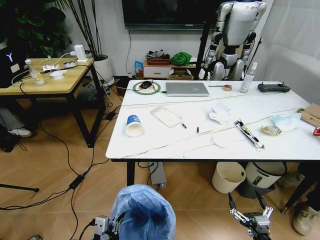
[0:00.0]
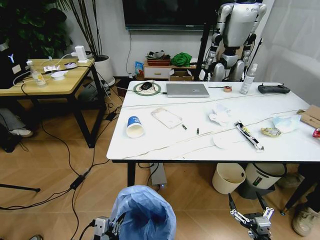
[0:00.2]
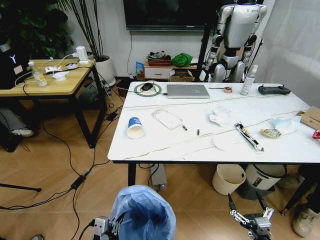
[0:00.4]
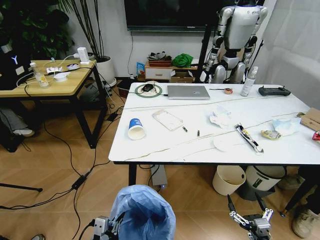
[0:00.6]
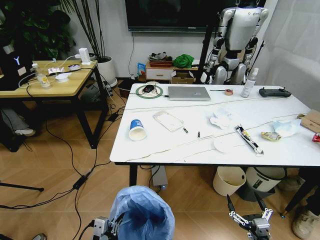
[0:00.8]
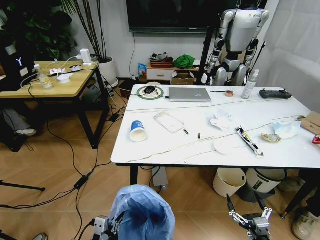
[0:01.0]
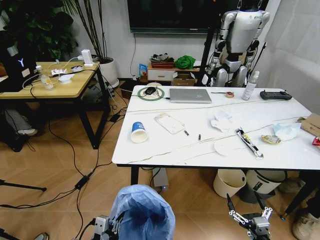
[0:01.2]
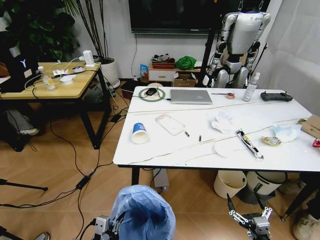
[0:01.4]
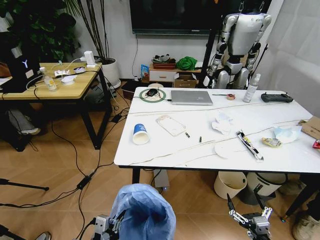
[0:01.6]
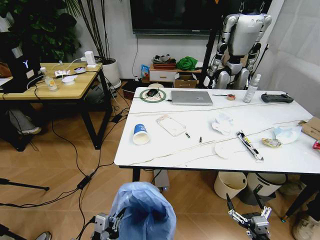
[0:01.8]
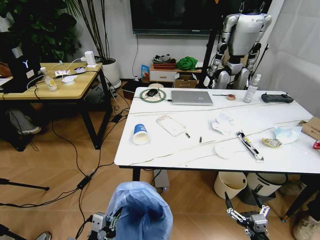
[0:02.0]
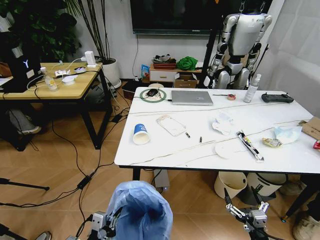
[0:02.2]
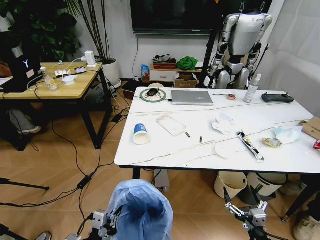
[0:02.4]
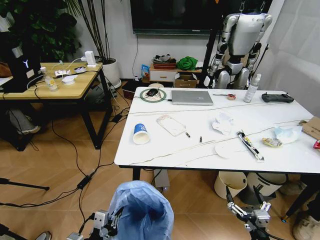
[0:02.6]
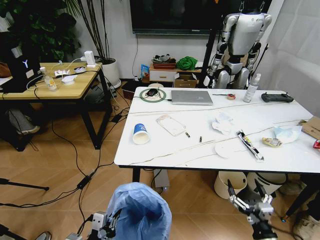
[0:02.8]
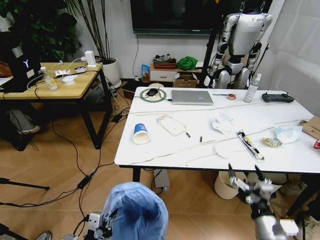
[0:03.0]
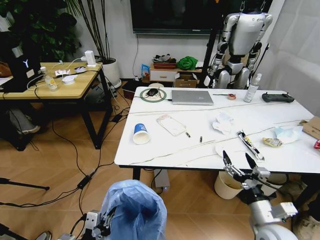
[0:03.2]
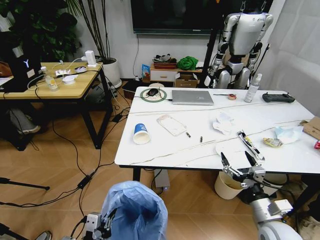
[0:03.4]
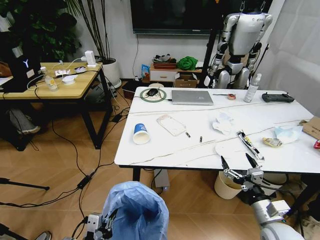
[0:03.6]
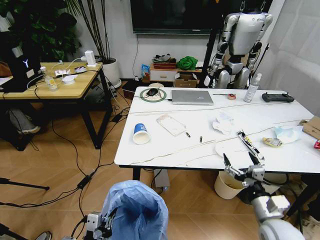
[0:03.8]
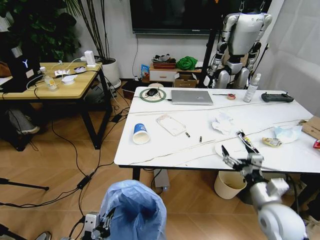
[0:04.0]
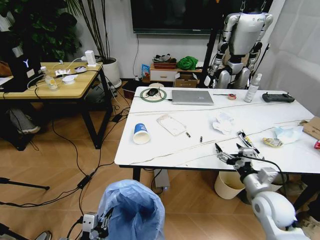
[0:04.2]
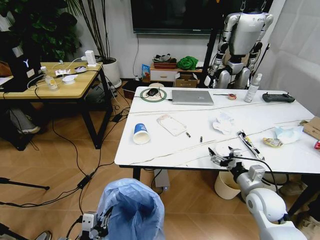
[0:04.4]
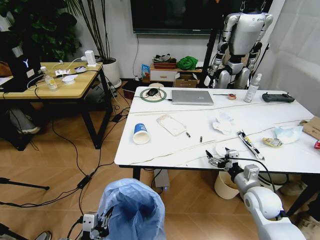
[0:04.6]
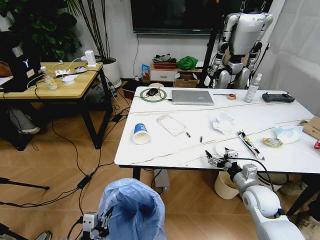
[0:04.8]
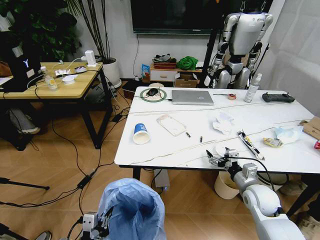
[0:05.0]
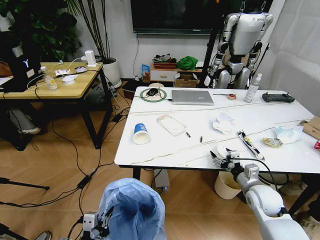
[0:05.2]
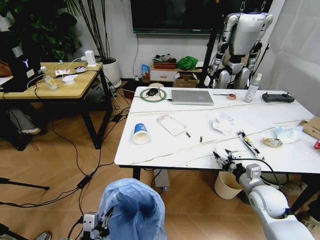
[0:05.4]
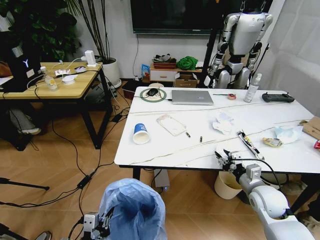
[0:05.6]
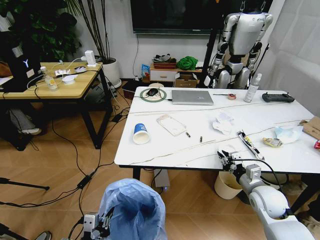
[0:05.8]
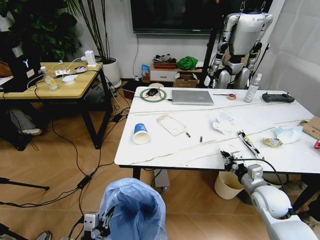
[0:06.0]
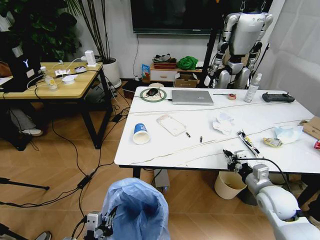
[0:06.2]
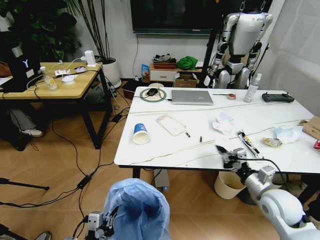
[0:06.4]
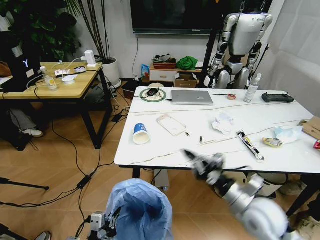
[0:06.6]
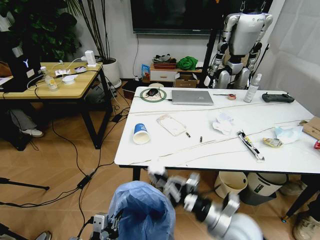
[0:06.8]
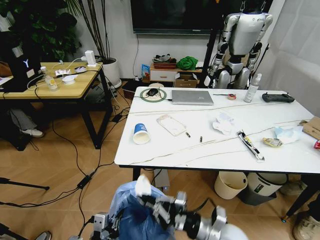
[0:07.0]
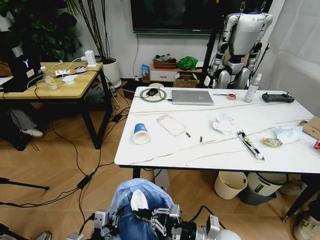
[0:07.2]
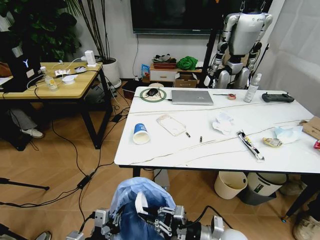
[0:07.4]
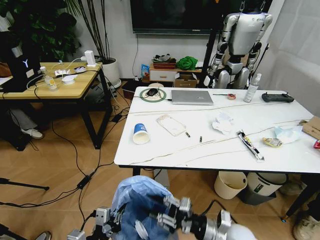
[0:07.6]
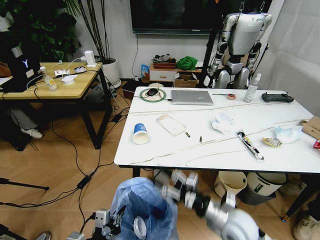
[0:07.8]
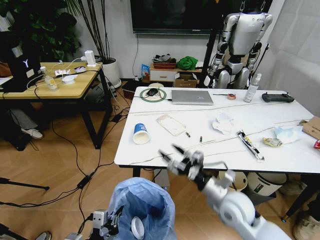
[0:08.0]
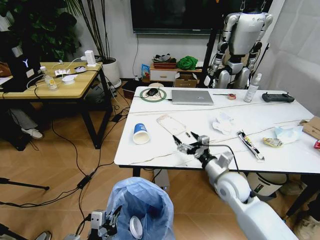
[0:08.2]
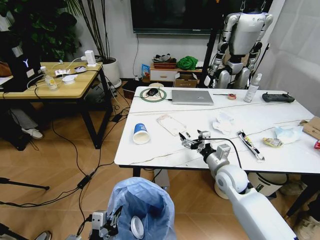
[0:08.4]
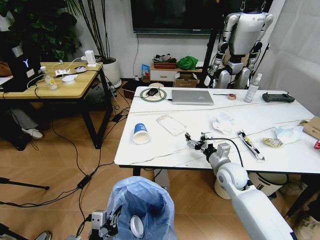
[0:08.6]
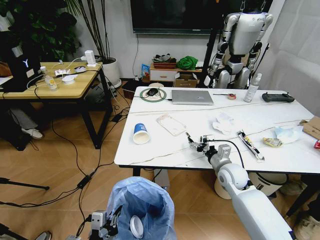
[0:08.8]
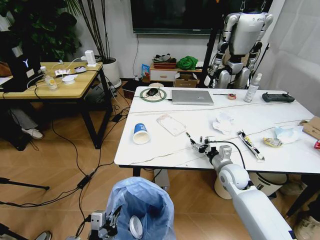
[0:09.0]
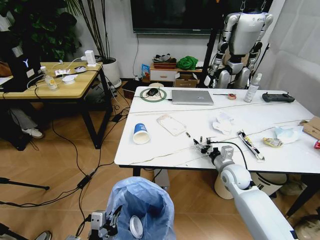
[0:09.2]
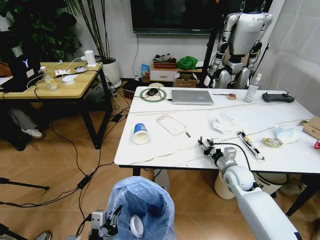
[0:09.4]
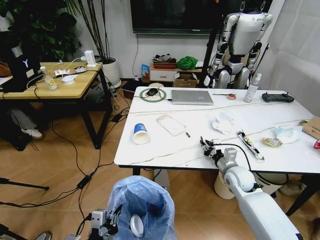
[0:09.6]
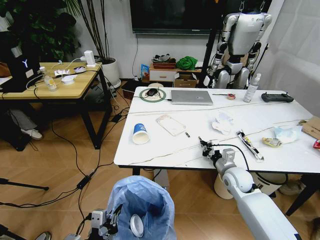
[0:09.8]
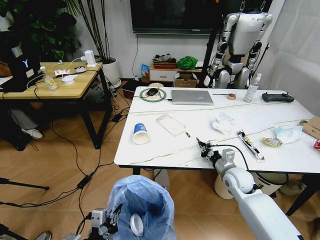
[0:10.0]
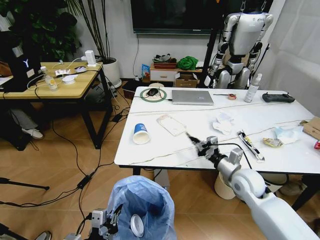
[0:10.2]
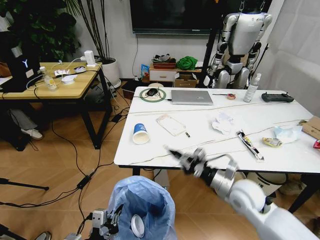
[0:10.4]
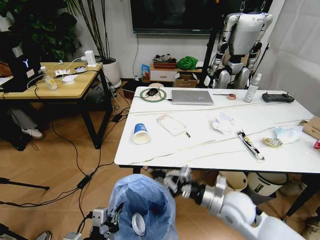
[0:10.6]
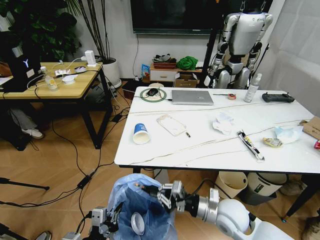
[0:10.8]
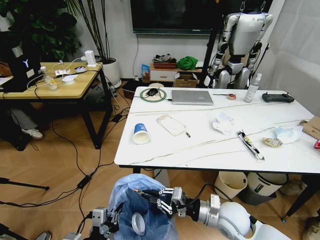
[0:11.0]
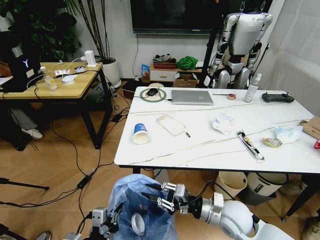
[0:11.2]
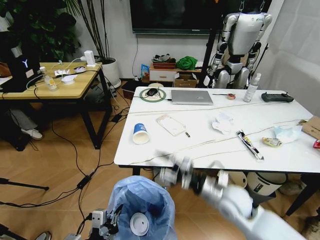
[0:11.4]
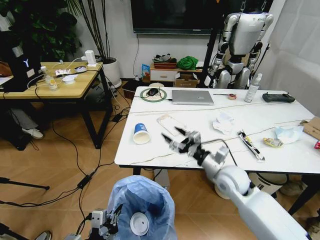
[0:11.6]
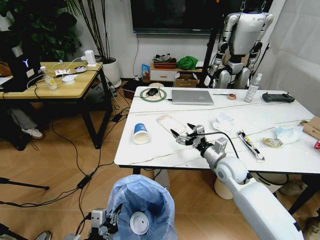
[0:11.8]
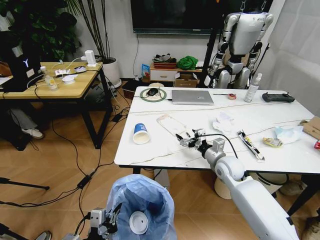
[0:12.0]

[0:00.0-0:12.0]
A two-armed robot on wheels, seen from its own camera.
Task of the whole recording: Pick up the trash bin and place the trash from the table into it.
0:01.6 to 0:03.0: The right gripper goes about 10 cm upward and forward.
0:03.0 to 0:04.4: The right gripper travels forward by about 15 cm.
0:04.4 to 0:06.0: The right gripper closes its fingers.
0:06.0 to 0:07.6: The right gripper shifts roughly 20 cm to the left and backward, and opens up.
0:07.6 to 0:09.0: The right gripper shifts roughly 20 cm forward, and opens up.
0:09.0 to 0:10.4: The right gripper moves backward and upward, about 10 cm, and closes up.
0:10.4 to 0:12.0: The right gripper travels forward by approximately 10 cm, and opens.

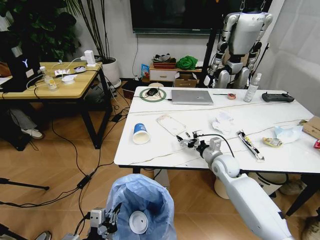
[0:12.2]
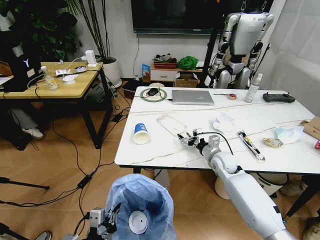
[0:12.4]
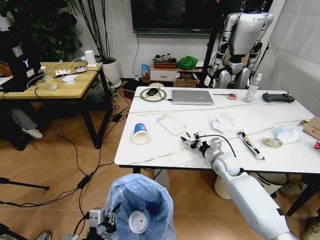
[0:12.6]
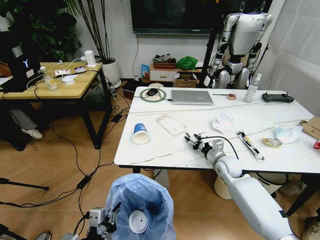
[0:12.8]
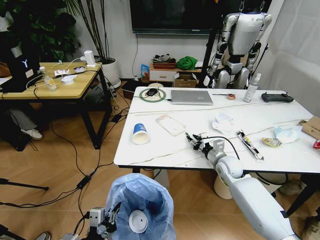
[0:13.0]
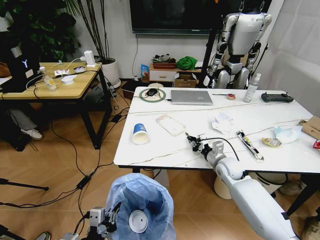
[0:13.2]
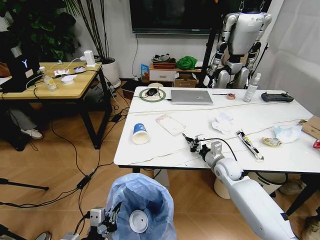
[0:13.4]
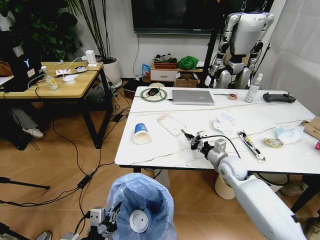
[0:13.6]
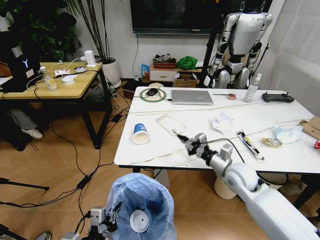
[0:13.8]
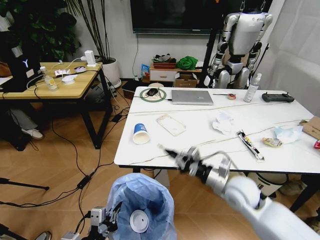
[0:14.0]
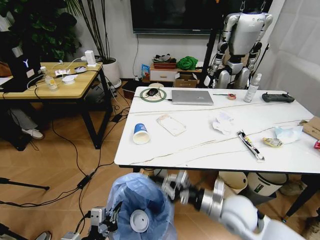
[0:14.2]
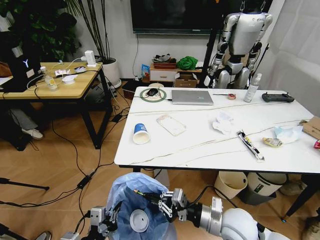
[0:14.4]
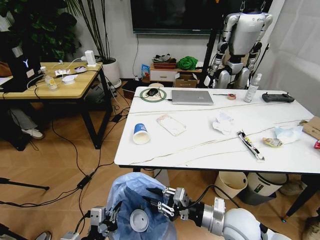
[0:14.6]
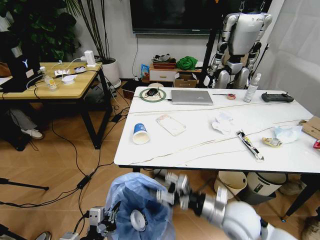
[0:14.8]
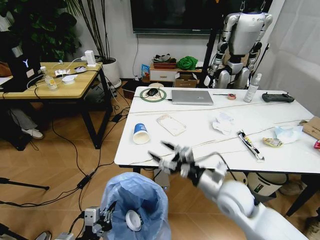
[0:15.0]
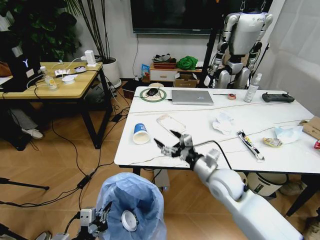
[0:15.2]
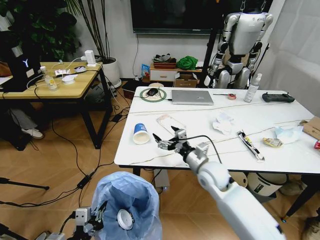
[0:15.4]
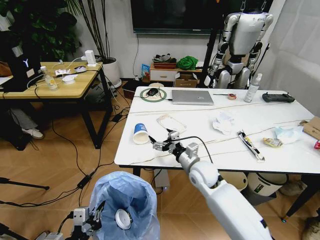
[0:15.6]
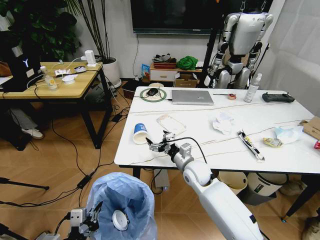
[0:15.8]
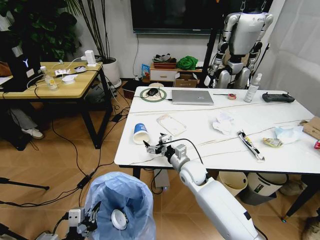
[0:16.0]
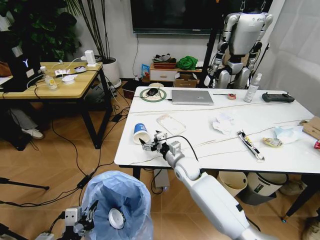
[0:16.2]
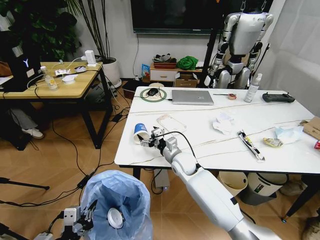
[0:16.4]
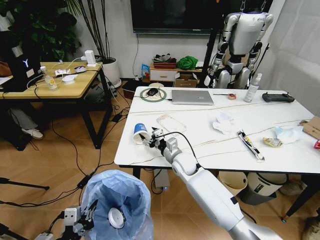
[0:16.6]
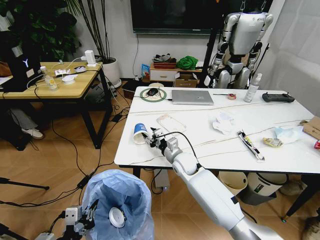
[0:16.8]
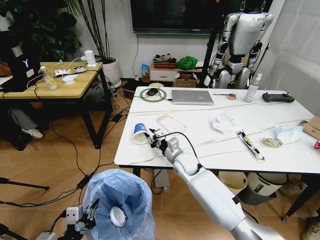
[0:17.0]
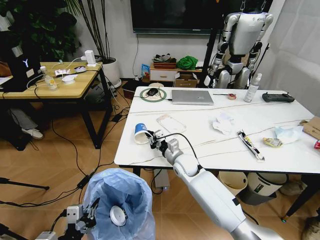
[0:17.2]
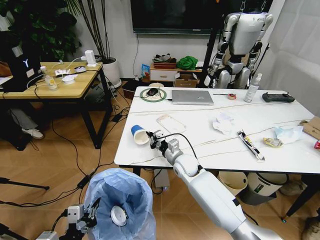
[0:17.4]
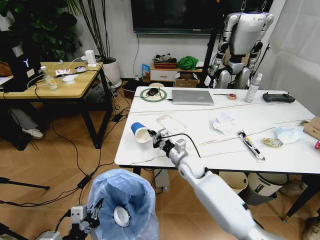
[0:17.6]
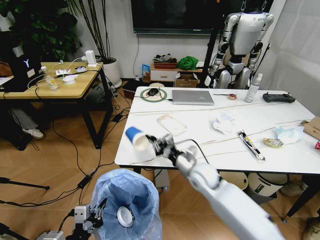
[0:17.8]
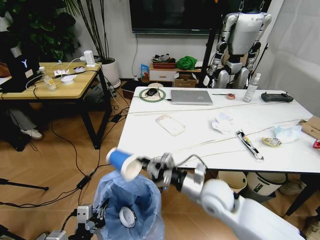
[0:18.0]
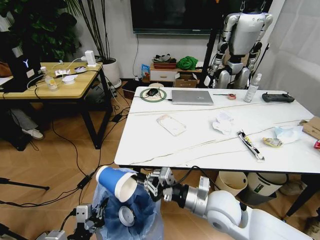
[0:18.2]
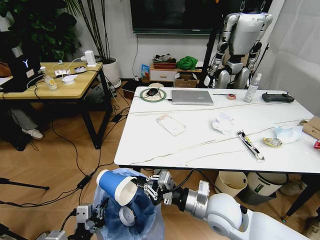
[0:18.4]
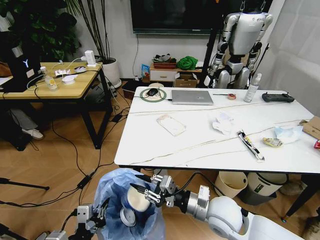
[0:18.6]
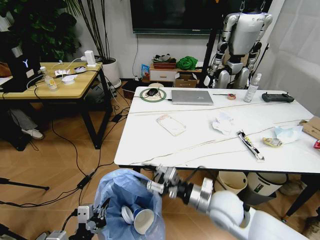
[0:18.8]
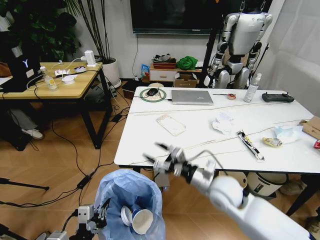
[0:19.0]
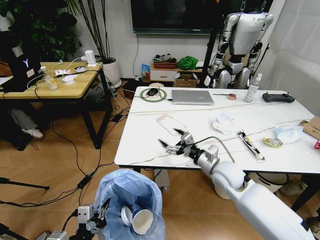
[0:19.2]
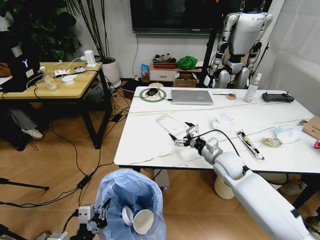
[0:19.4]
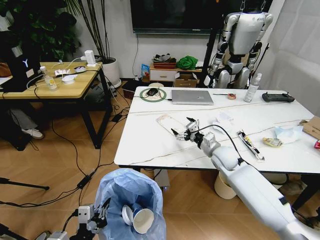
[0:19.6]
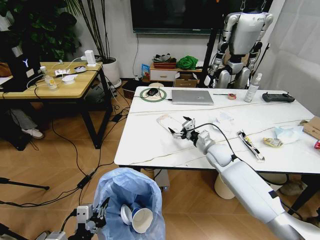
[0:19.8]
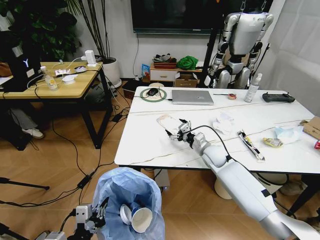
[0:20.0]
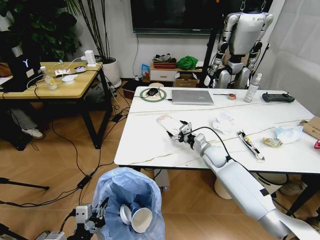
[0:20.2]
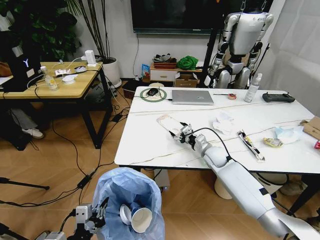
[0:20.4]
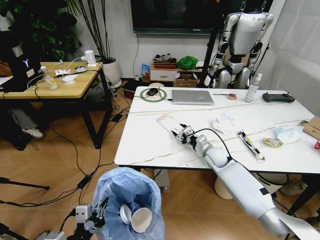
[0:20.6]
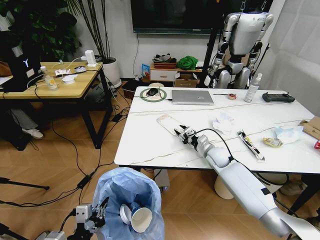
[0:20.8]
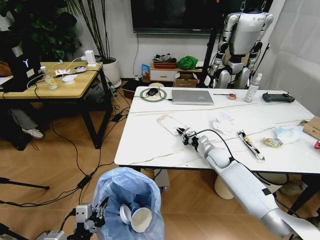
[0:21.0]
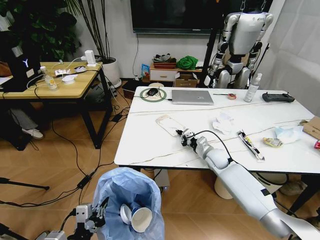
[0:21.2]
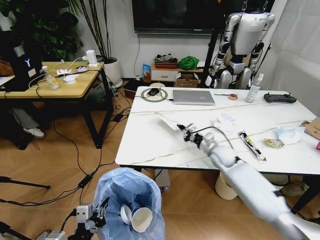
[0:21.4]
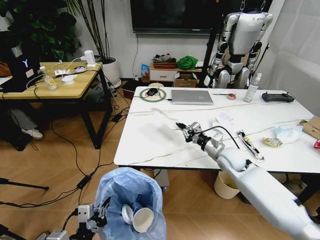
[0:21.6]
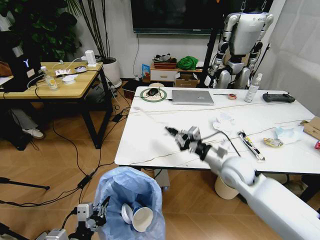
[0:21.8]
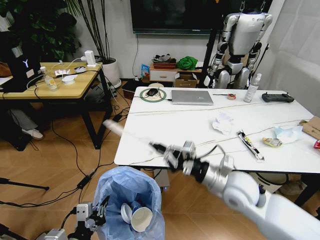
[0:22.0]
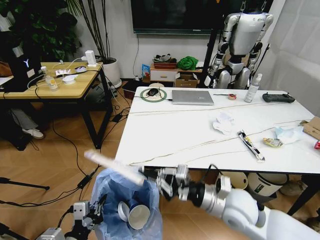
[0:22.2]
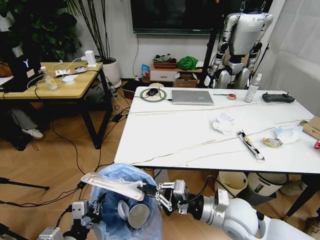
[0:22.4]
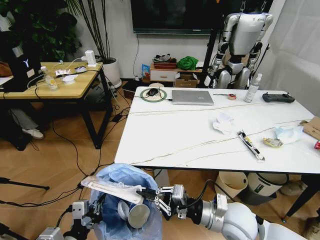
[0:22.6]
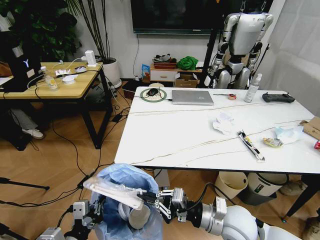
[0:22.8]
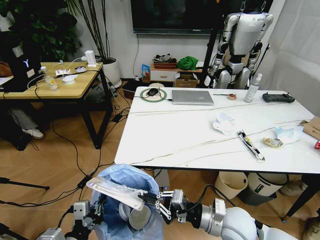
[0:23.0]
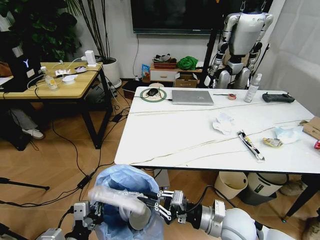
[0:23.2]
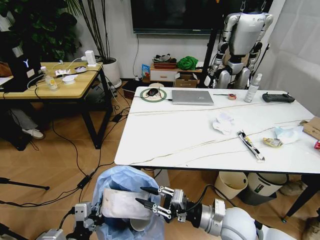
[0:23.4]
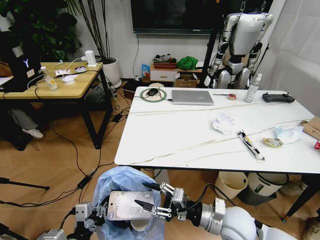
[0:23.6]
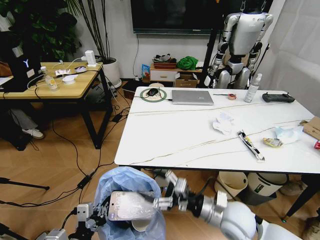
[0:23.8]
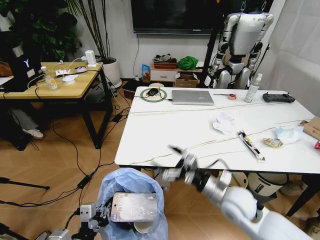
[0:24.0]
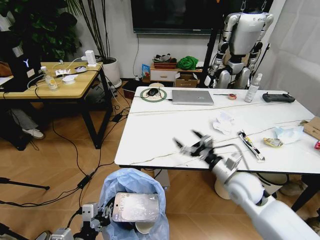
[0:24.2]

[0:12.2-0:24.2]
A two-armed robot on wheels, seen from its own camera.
Task of the whole recording: Pick up the trash bin and place the trash from the table into it.
0:12.2 to 0:13.8: The right gripper shifts approximately 5 cm backward, and closes up.
0:13.8 to 0:15.2: The right gripper goes roughly 10 cm to the left and backward, and opens up.
0:15.2 to 0:16.6: The right gripper travels forward, to the left and downward by some 20 cm.
0:16.6 to 0:18.2: The right gripper goes approximately 20 cm backward, and closes.
0:18.2 to 0:19.8: The right gripper moves forward, some 20 cm, and opens.
0:19.8 to 0:21.2: The right gripper changes place by approximately 5 cm, and closes its fingers.
0:21.2 to 0:22.6: The right gripper goes roughly 25 cm backward.
0:22.6 to 0:24.2: The right gripper heads forward and to the right, covering some 10 cm, and opens.
